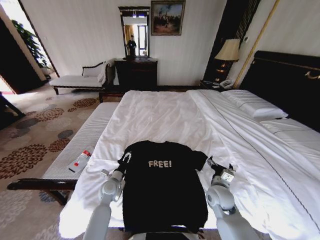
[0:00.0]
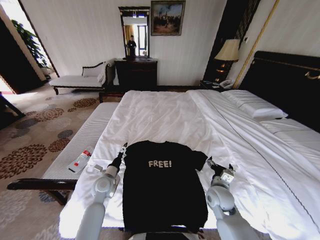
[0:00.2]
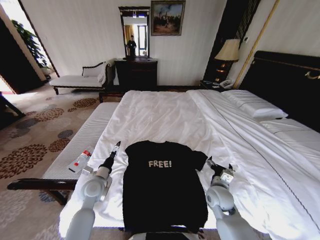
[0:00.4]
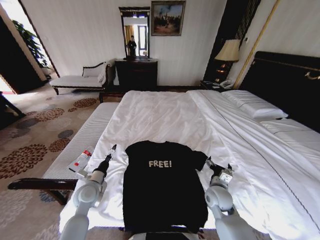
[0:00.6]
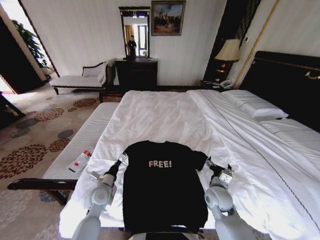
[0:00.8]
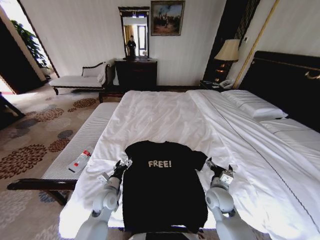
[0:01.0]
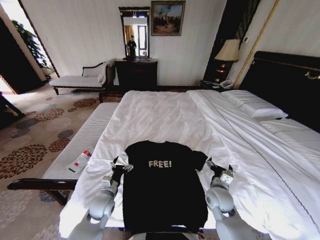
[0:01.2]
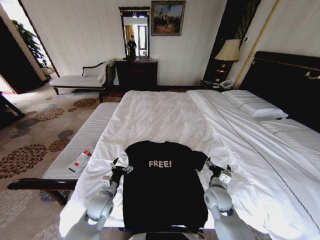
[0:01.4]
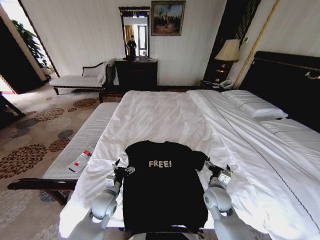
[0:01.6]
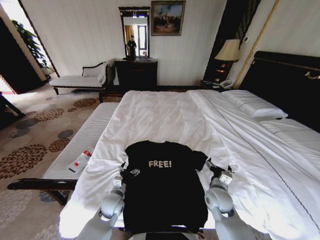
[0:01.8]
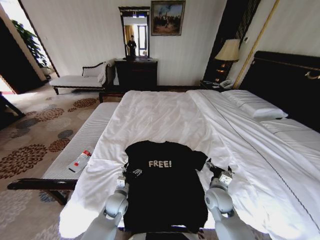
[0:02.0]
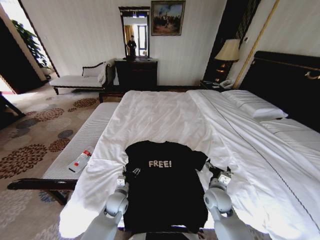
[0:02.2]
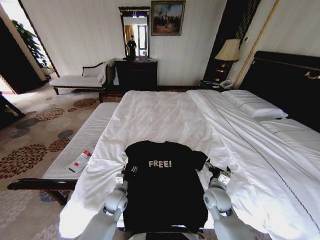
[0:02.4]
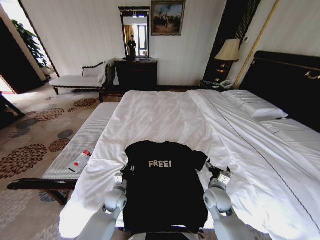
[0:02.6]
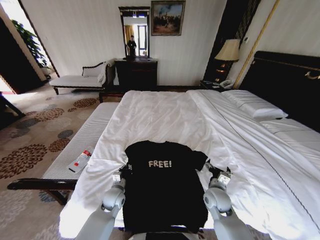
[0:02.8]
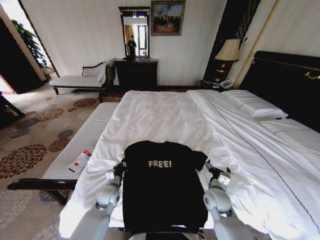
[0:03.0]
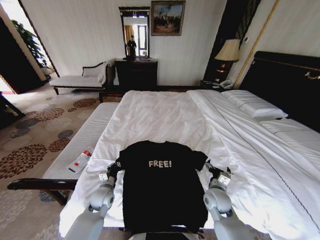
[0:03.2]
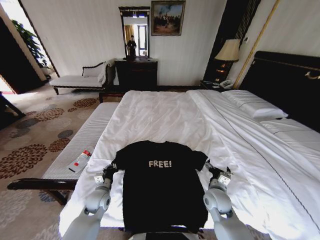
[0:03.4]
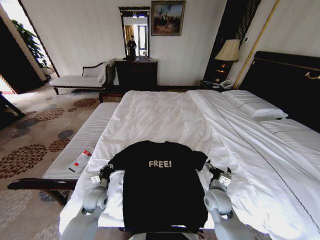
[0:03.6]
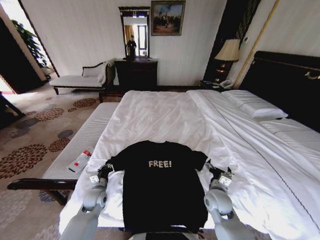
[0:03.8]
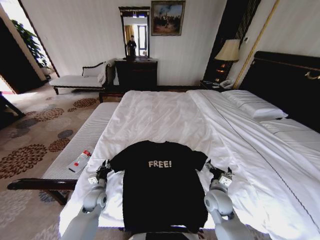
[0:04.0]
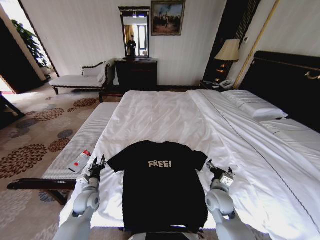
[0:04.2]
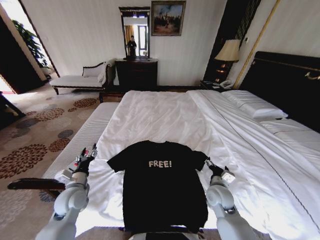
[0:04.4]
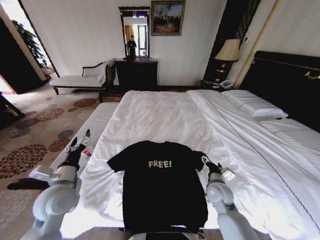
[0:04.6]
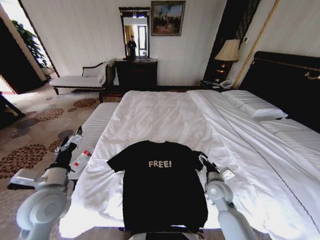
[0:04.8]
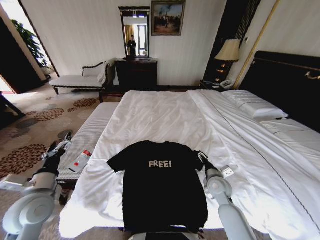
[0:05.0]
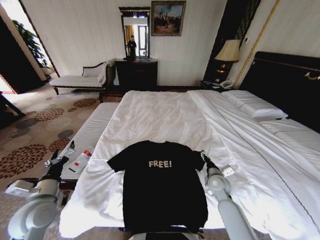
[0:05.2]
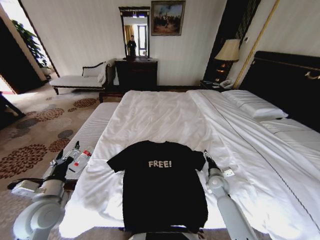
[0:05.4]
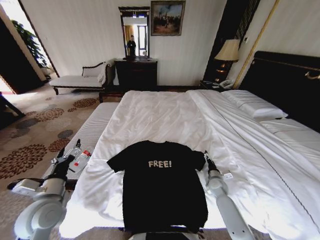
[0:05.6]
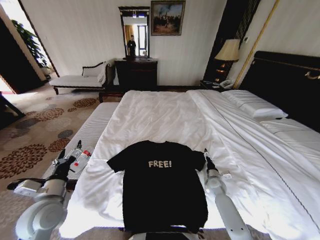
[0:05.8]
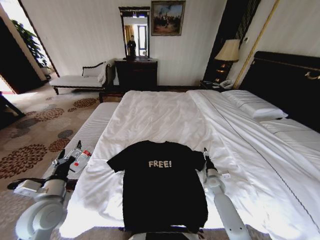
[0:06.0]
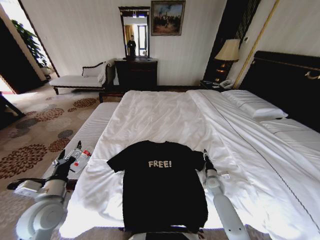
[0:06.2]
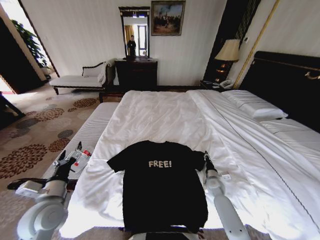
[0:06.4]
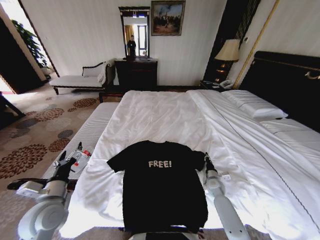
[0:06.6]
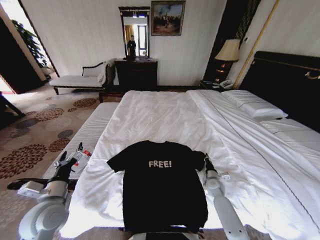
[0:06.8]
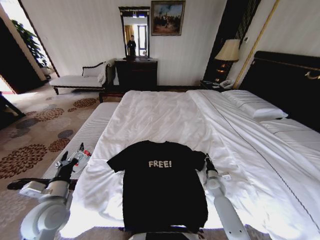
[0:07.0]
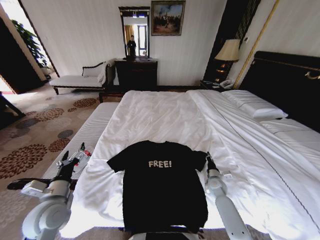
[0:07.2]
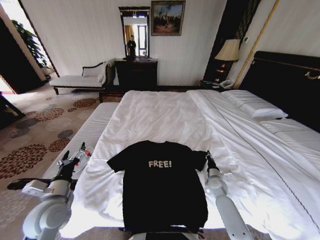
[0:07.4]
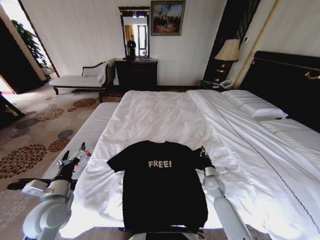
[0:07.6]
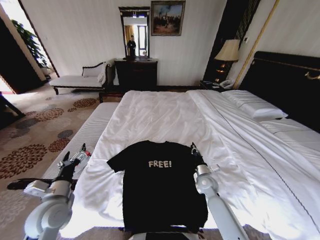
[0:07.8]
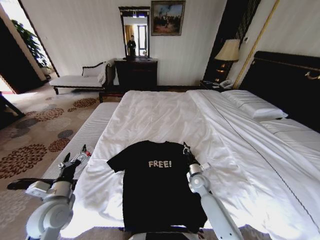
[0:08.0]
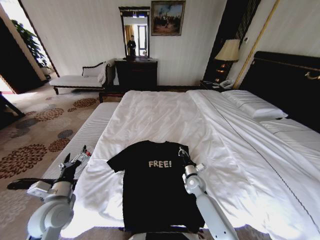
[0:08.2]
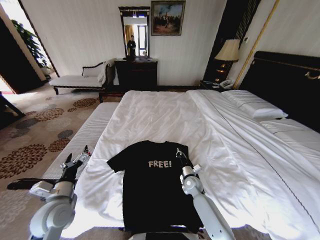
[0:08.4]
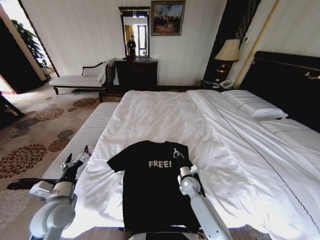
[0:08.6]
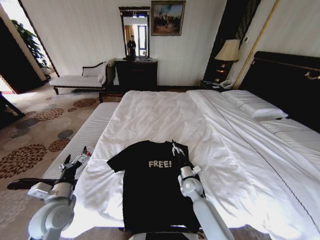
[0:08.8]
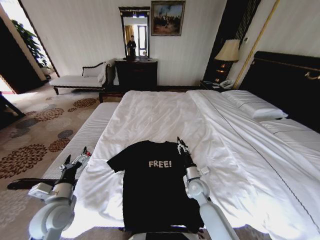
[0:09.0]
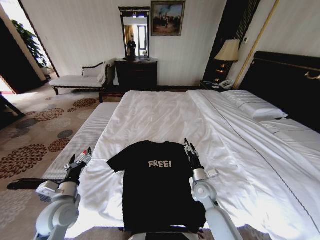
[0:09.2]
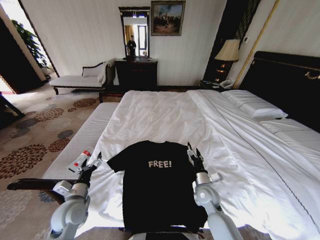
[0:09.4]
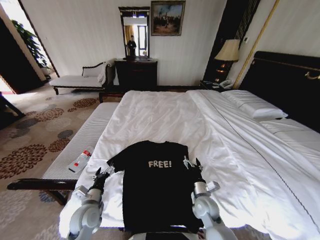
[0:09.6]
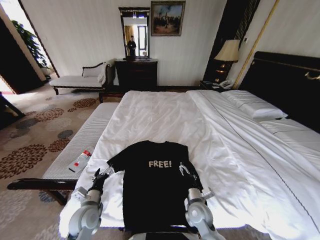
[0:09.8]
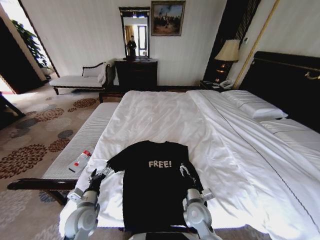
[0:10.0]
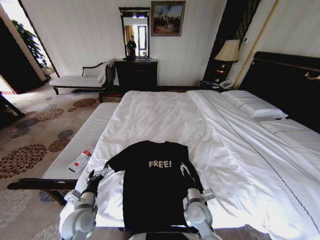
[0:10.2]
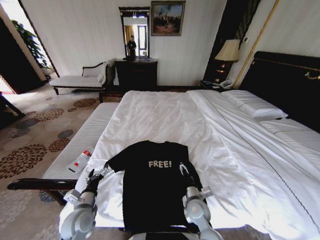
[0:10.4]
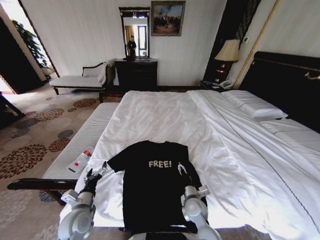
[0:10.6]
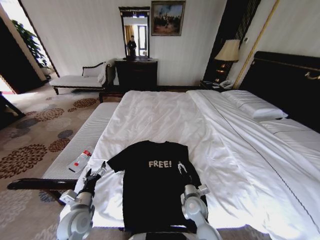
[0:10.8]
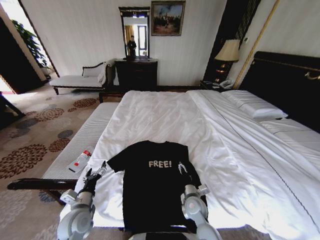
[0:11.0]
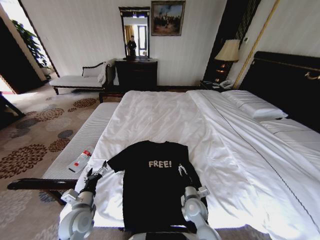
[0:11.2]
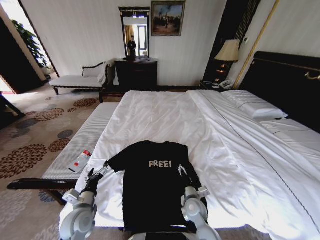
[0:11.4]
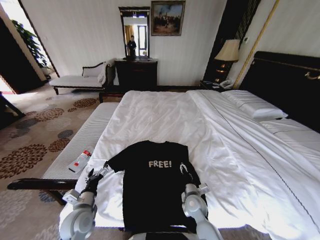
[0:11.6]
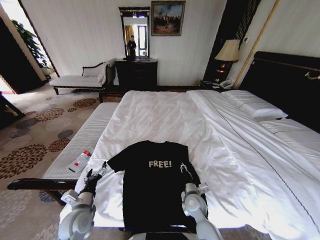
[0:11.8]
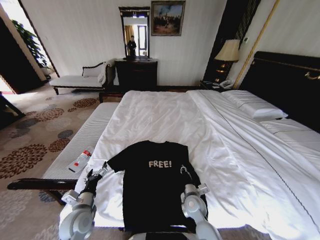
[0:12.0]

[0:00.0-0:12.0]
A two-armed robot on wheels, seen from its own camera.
Task of the whole recording: Fold the clothes on the bed.
0:00.0 to 0:01.6: The left gripper goes about 5 cm backward.
0:01.6 to 0:03.0: The left gripper closes up.
0:03.0 to 0:04.4: The left gripper goes some 15 cm to the left and upward, and opens.
0:04.4 to 0:06.0: The right gripper travels downward, forward and to the right by about 15 cm; the left gripper is displaced backward and upward by roughly 10 cm.
0:06.0 to 0:07.6: The right gripper shifts by roughly 5 cm, and closes up.
0:07.6 to 0:09.0: The right gripper moves to the left, about 10 cm, and opens its fingers.
0:09.0 to 0:10.4: The left gripper is displaced downward and to the right by about 10 cm, while the right gripper heads backward, covering roughly 10 cm, and opens.
0:10.4 to 0:12.0: The right gripper closes its fingers.

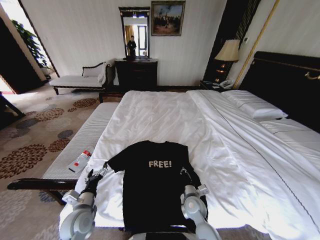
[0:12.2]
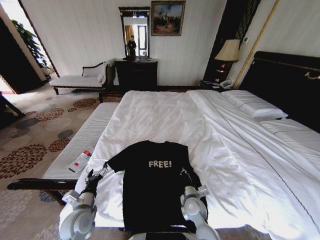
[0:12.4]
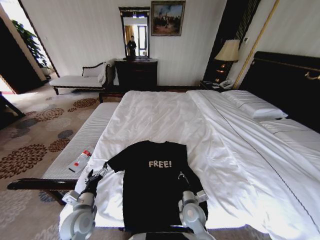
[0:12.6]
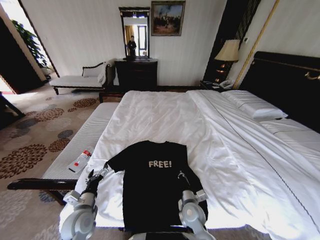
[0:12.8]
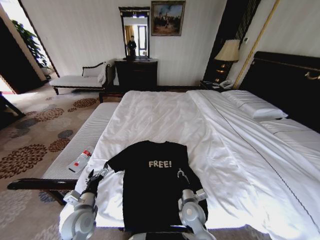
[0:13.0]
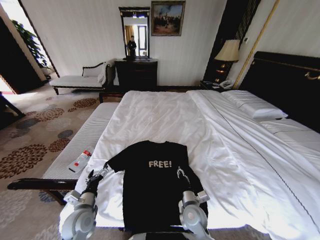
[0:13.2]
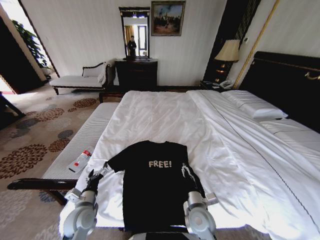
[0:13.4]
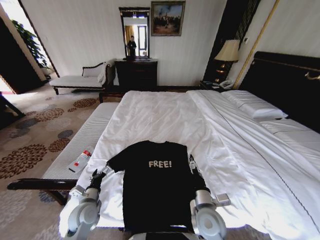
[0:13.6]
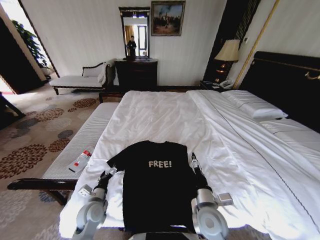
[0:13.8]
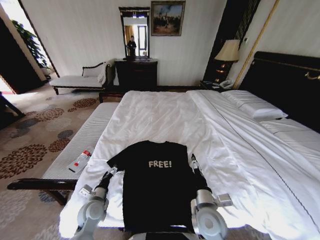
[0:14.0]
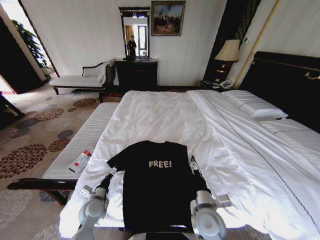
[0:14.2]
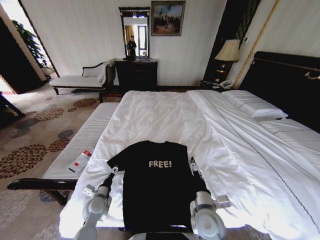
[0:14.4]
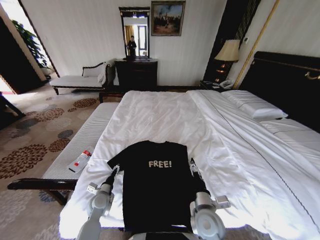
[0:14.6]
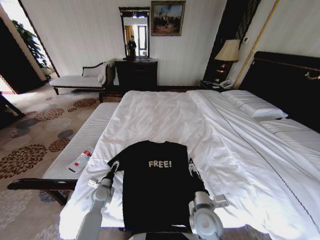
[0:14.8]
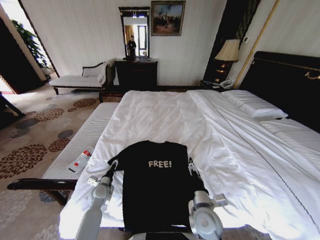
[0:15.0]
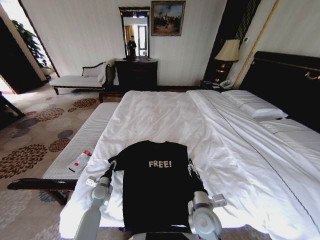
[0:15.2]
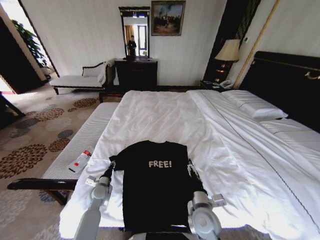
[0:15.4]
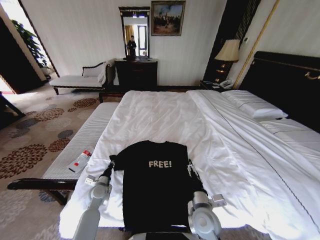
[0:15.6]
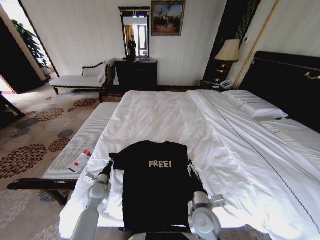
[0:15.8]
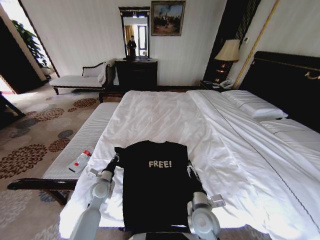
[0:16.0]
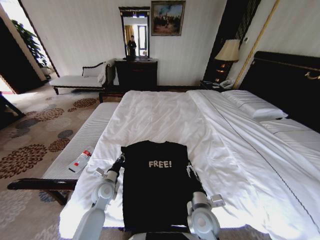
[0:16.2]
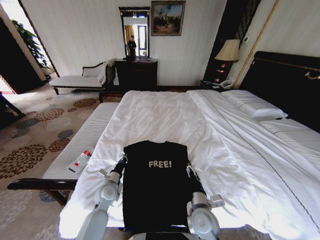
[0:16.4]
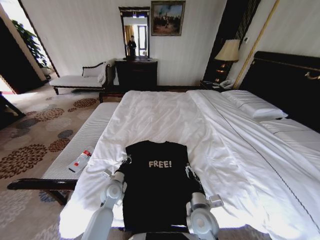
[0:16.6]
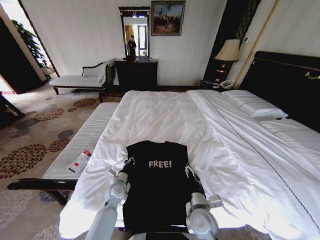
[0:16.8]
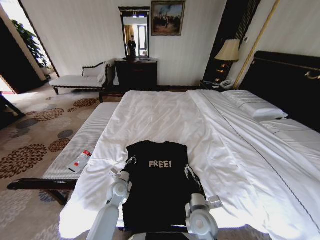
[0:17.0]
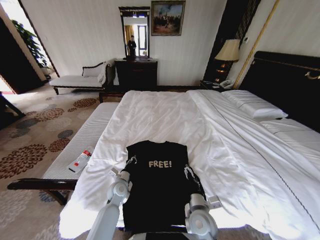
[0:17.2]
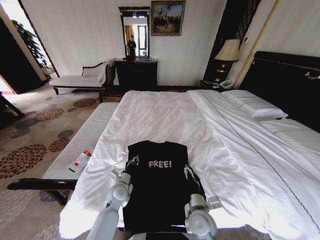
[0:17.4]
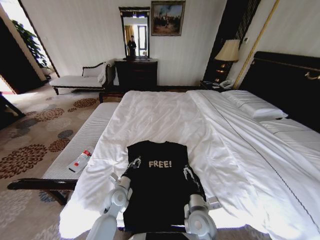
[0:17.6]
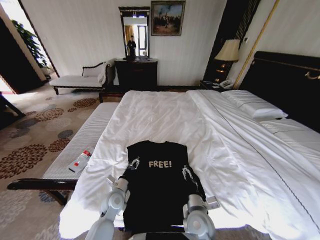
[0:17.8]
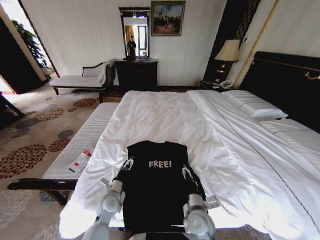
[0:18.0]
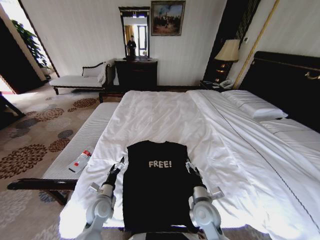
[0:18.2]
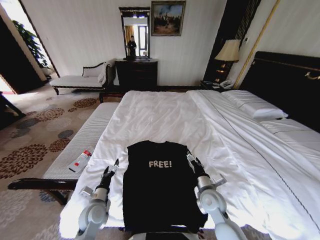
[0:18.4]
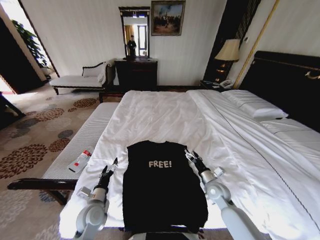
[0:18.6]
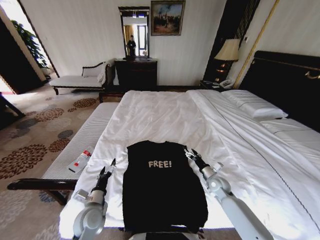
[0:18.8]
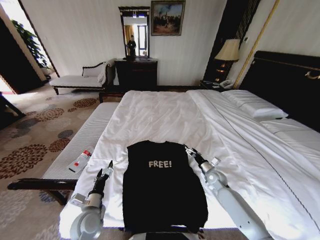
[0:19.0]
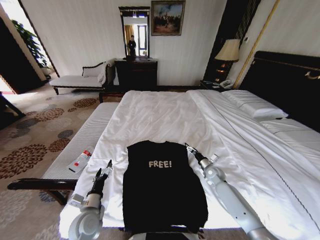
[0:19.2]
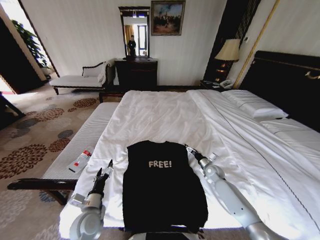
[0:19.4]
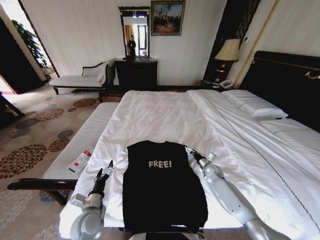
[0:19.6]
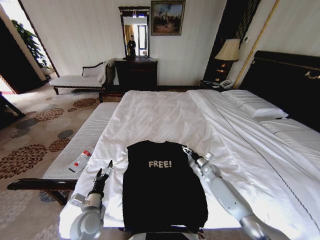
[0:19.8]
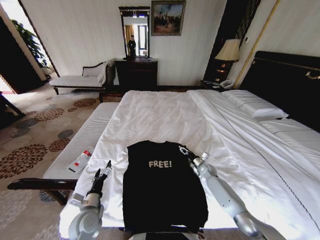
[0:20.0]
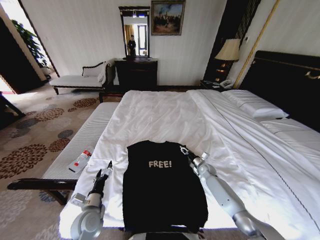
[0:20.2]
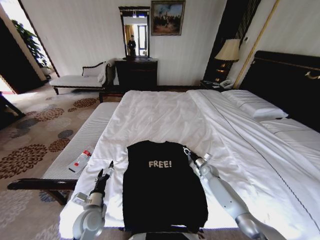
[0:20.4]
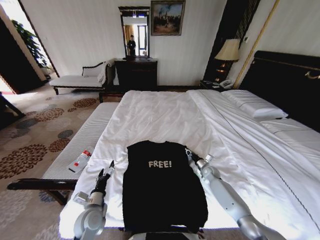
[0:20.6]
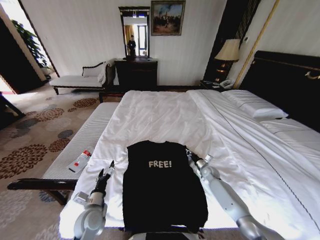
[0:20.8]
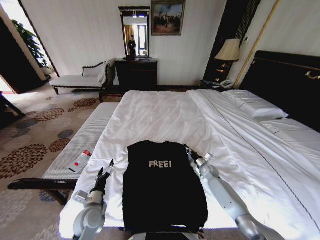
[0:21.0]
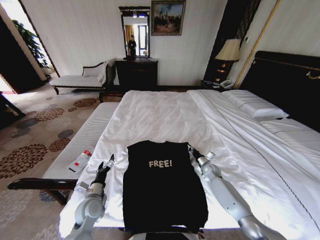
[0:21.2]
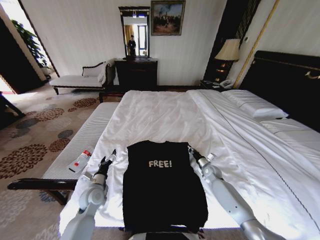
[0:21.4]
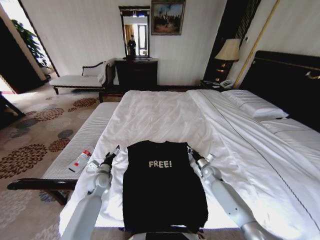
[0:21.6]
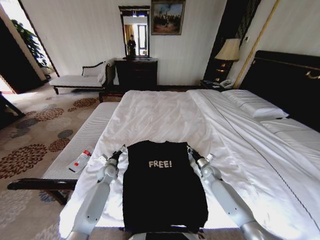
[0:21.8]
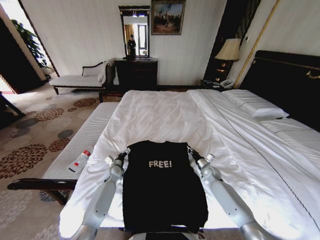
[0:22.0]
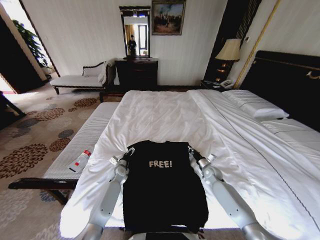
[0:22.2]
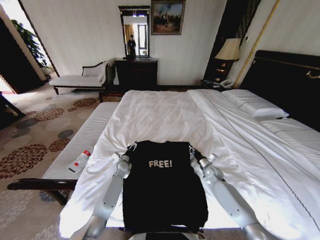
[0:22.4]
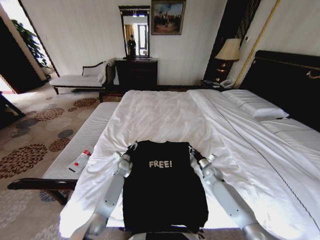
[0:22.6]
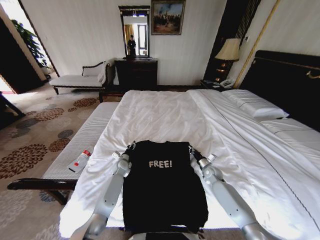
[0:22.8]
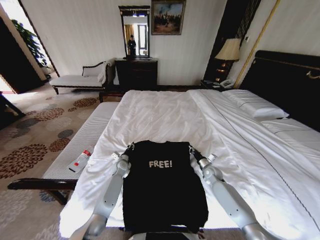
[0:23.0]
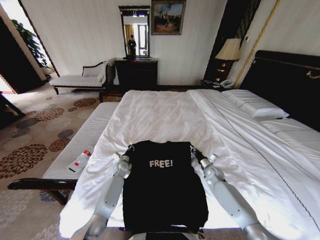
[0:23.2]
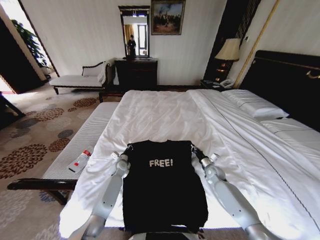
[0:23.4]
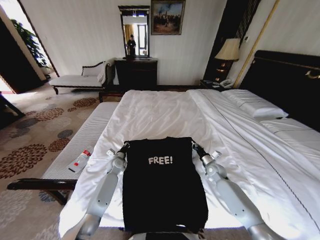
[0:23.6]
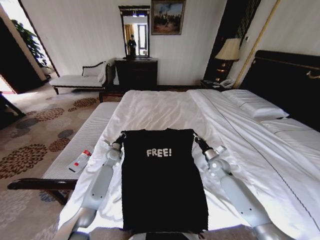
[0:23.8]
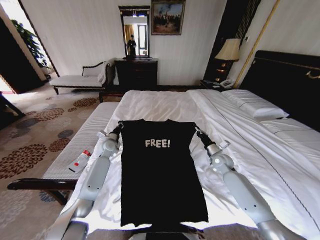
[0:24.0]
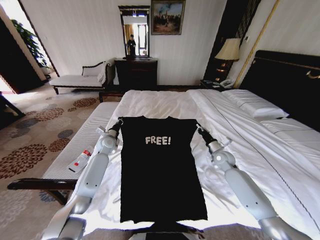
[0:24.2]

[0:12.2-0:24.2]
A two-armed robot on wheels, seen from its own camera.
Task of the whole recording: Fold the clothes on the bed.
0:12.2 to 0:13.8: The left gripper changes place by approximately 5 cm; the right gripper heads upward and backward, covering about 15 cm, and opens.
0:13.8 to 0:15.2: The left gripper moves forward and downward, some 10 cm.
0:15.2 to 0:16.6: The left gripper moves to the right, approximately 5 cm, and closes up.
0:16.6 to 0:18.2: The left gripper travels backward by some 5 cm, and opens.
0:18.2 to 0:19.8: The right gripper moves forward, to the right and downward, approximately 30 cm. The left gripper shifts approximately 5 cm backward.
0:19.8 to 0:21.2: The right gripper closes its fingers.
0:21.2 to 0:22.6: The left gripper is displaced forward by some 25 cm.
0:22.6 to 0:24.2: The right gripper goes approximately 10 cm upward. Meanwhile the left gripper travels upward and to the left by some 15 cm, and closes up.
